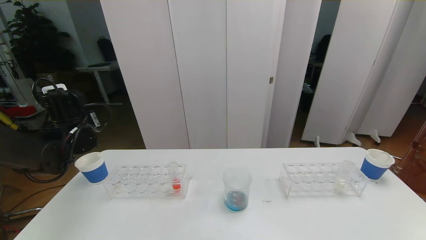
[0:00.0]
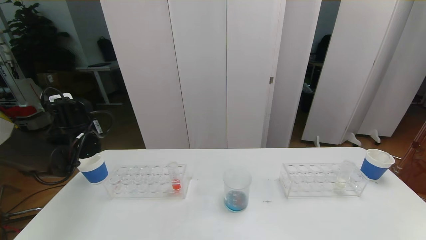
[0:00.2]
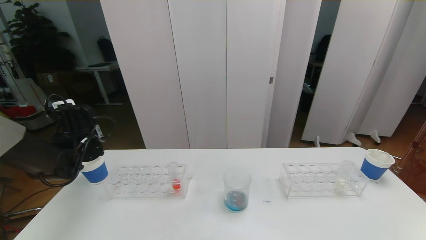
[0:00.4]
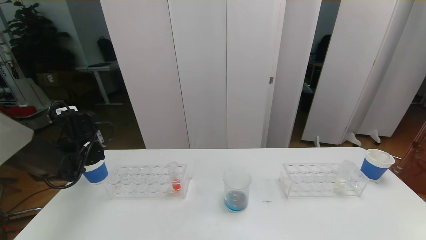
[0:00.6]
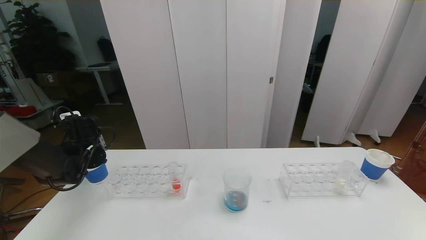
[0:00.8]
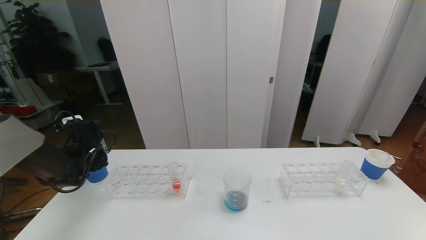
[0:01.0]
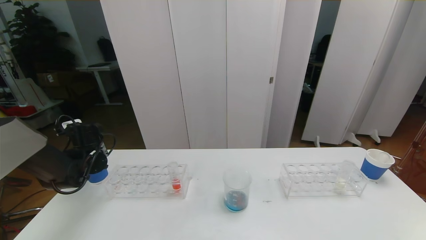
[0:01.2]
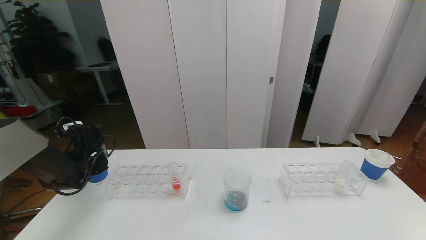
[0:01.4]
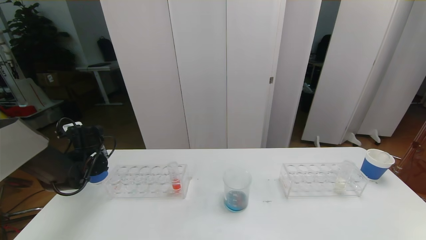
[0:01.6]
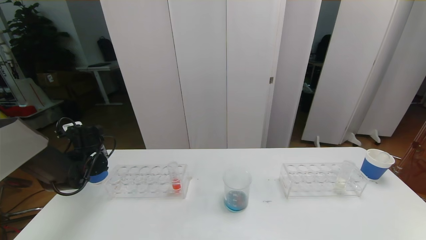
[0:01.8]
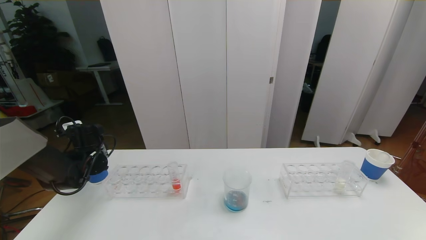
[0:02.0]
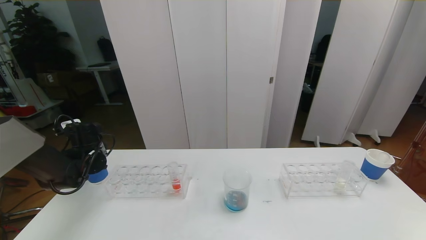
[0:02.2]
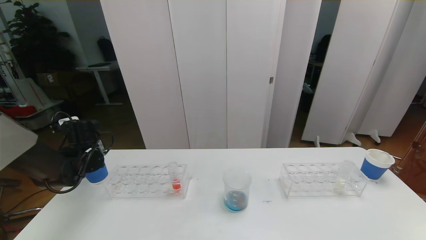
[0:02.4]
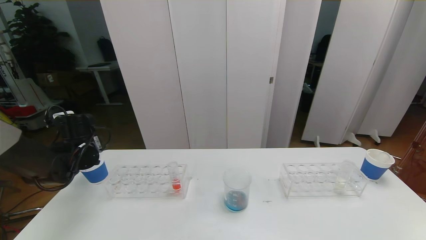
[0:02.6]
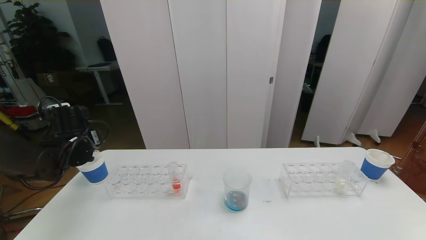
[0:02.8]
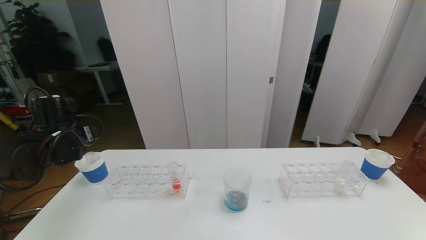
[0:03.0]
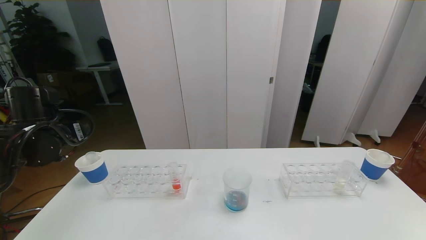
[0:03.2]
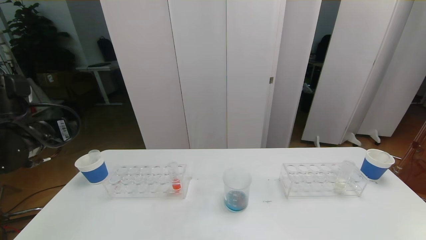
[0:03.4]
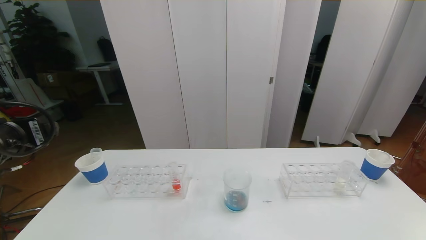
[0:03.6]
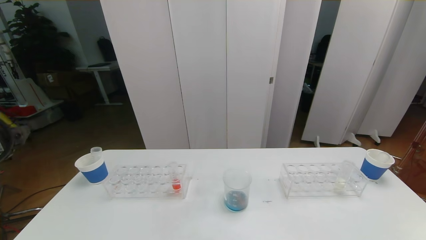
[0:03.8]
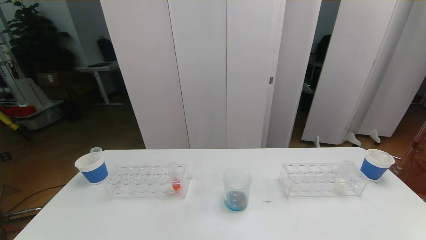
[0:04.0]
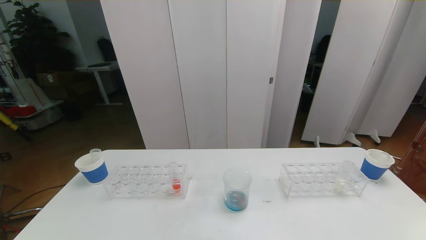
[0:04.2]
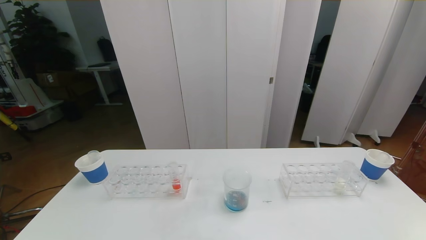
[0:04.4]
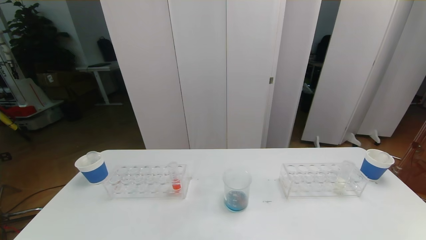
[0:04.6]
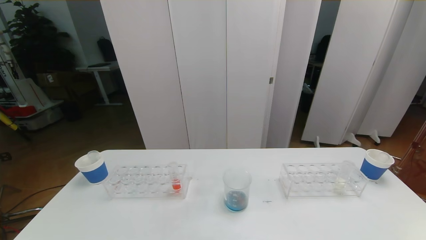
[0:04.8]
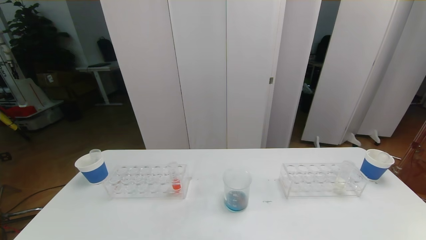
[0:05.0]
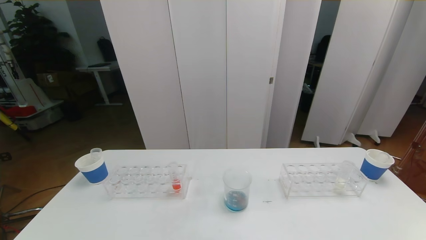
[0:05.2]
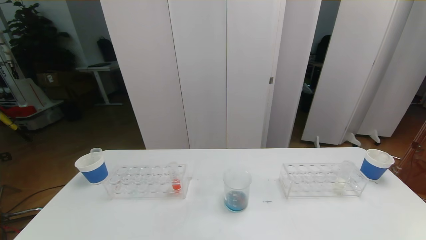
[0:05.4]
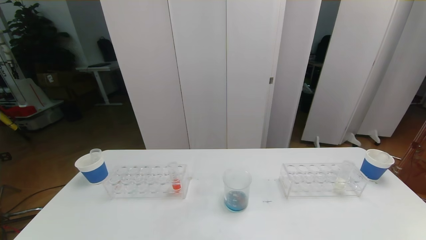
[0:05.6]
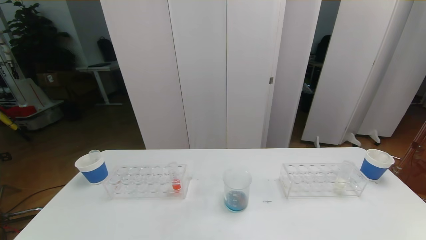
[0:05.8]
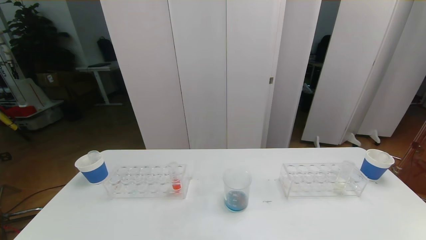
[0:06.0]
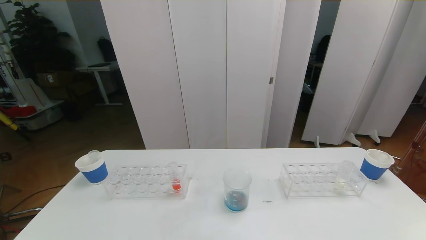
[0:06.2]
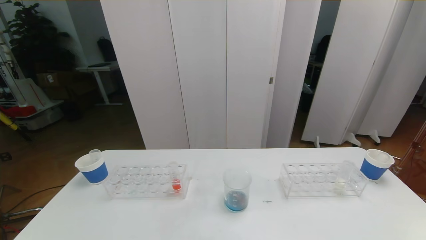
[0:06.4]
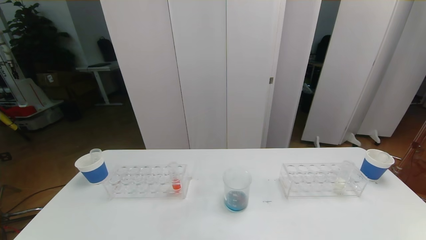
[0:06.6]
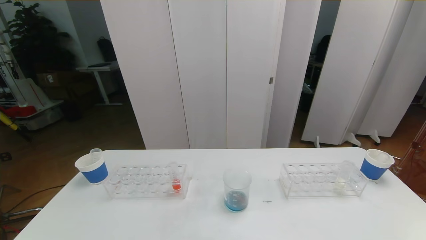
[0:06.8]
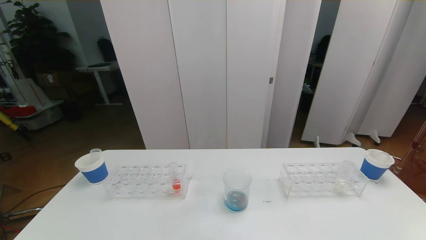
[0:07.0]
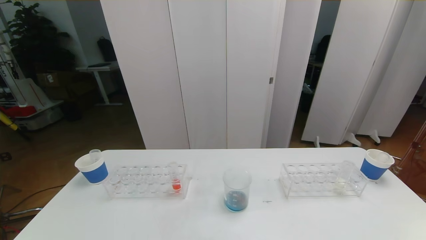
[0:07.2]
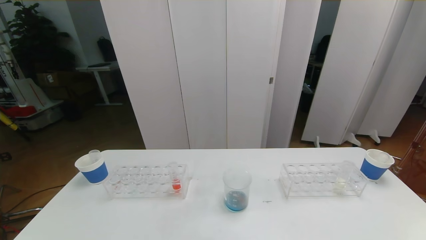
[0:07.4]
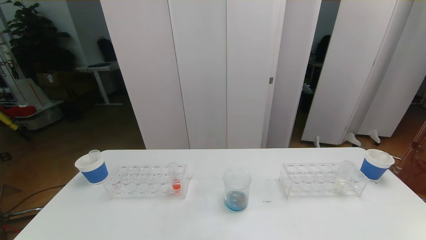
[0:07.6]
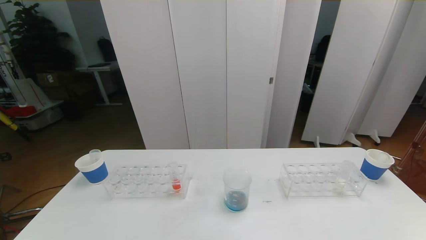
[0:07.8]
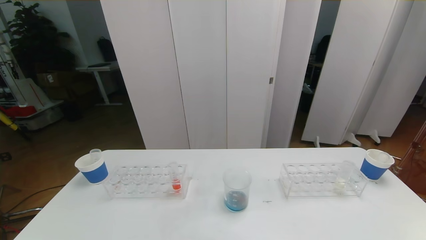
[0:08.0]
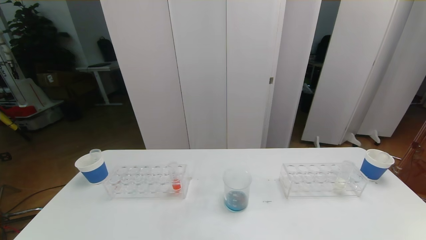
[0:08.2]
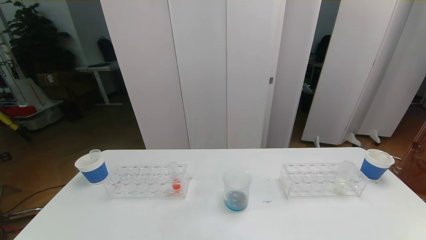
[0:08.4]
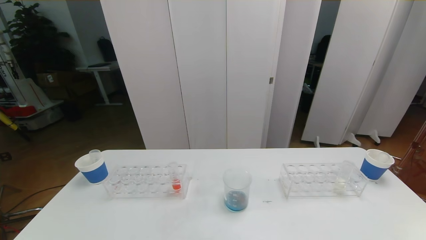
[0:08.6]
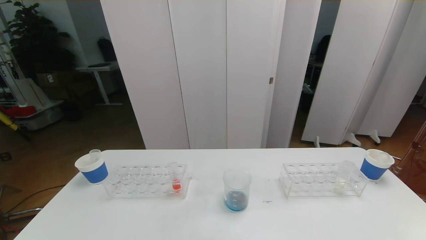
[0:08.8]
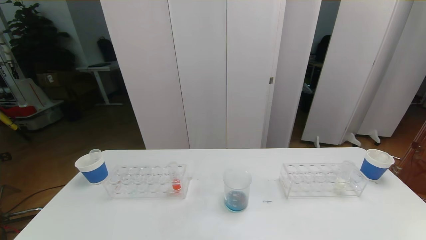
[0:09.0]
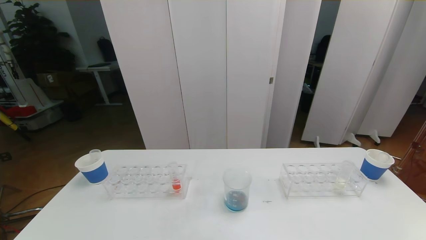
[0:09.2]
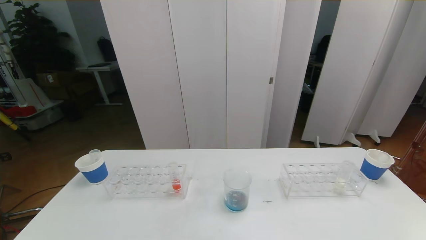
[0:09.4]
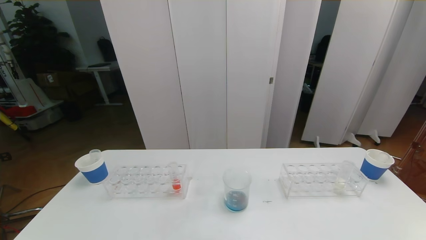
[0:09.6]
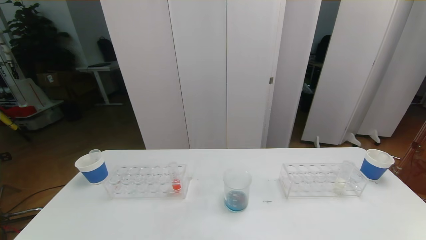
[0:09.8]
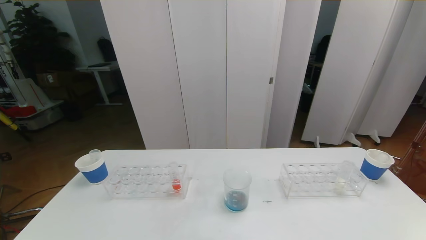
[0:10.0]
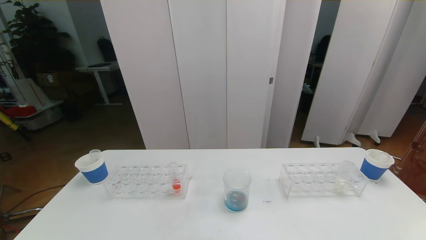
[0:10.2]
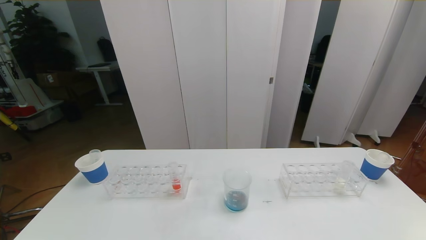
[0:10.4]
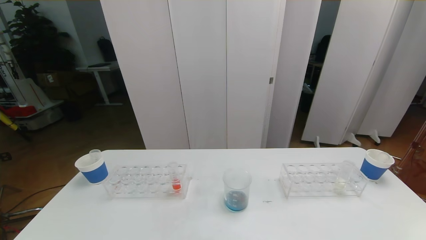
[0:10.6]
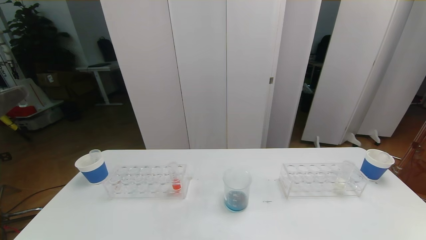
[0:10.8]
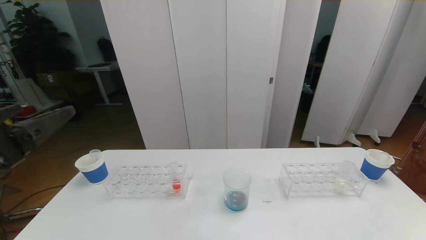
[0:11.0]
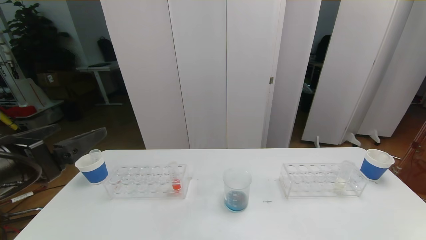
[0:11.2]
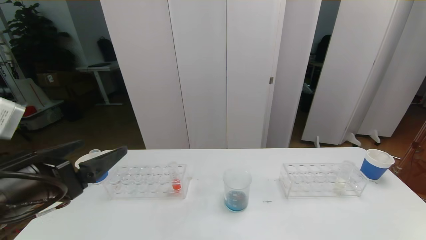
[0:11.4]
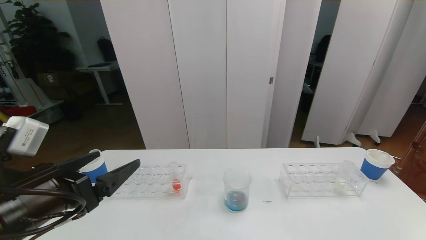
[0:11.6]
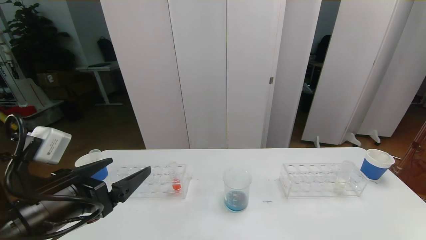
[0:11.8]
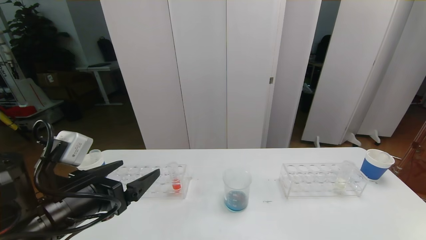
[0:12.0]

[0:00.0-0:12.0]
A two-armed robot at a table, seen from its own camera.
Task of the whole recording: pick up the test tube with red pigment the test tube with blue pigment and the test tube with white pigment by grippers and pour them into the beaker.
Step, 0:00.0 to 0:06.8: Pour the blue reagent into the graduated cylinder and place the test tube into the paper cup.
0:00.0 to 0:01.6: The left gripper is displaced downward by roughly 10 cm.
0:01.6 to 0:03.0: The left gripper heads upward and backward, covering approximately 10 cm, and opens its fingers.
0:03.0 to 0:04.4: The left gripper travels backward by roughly 30 cm.
0:06.0 to 0:09.0: Neither gripper changes place.
0:10.4 to 0:12.0: The left gripper heads forward and downward, covering about 20 cm.

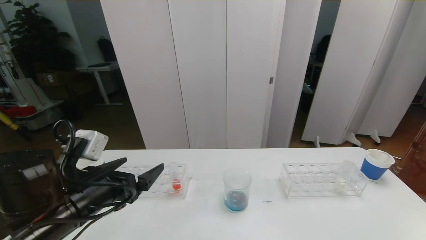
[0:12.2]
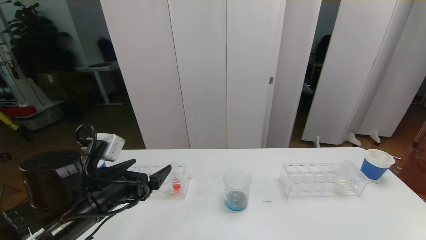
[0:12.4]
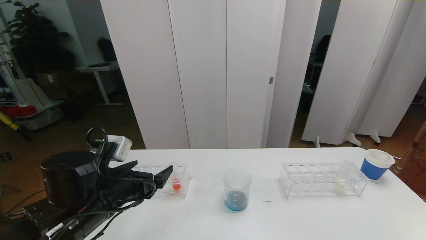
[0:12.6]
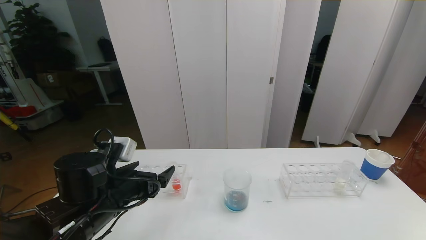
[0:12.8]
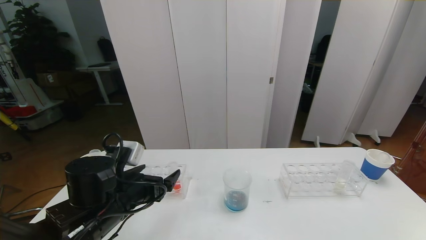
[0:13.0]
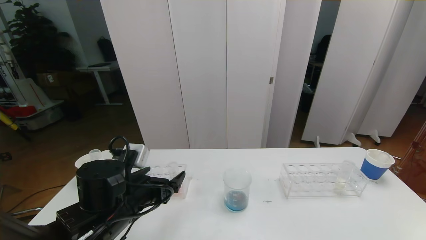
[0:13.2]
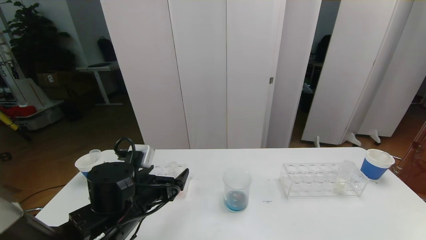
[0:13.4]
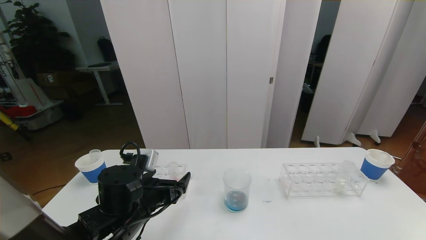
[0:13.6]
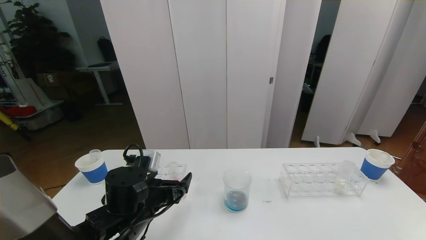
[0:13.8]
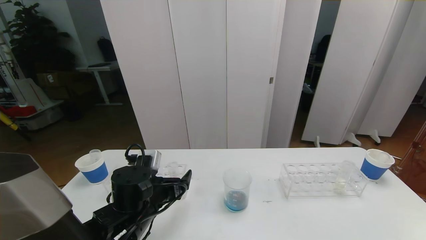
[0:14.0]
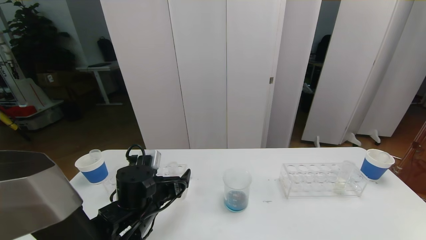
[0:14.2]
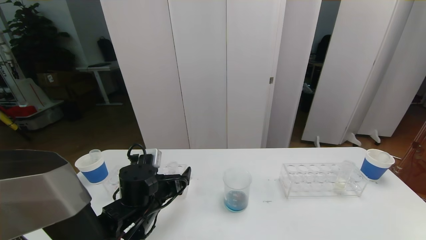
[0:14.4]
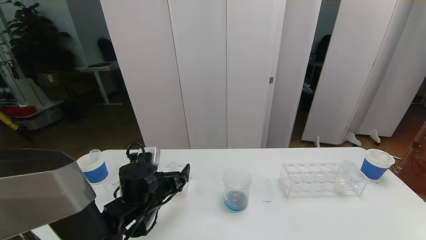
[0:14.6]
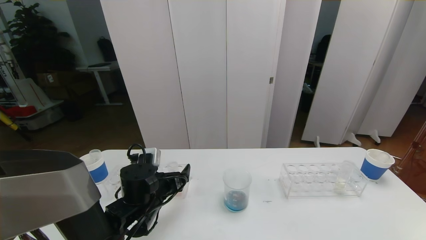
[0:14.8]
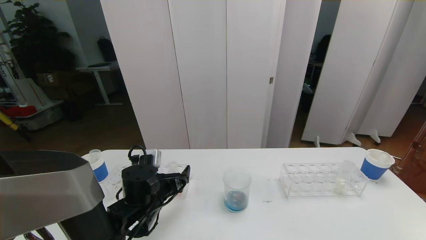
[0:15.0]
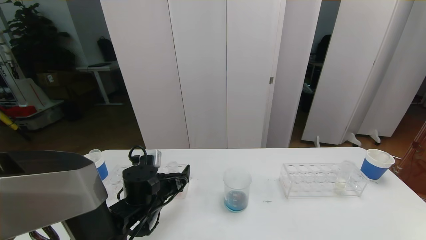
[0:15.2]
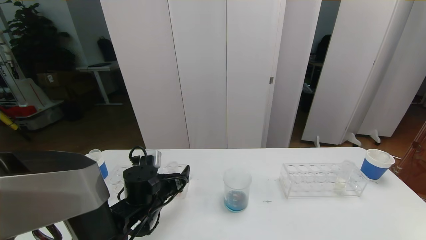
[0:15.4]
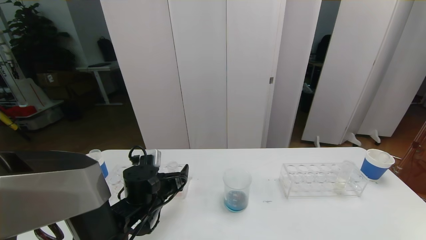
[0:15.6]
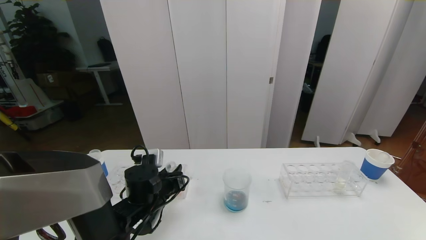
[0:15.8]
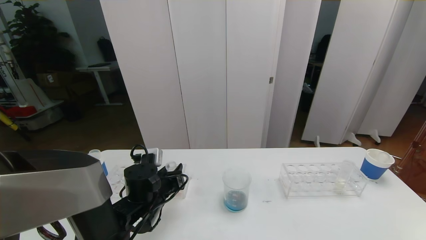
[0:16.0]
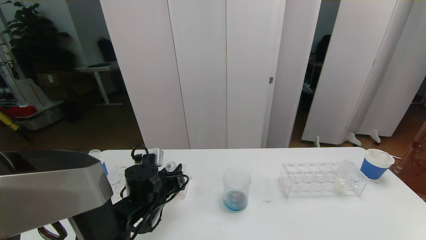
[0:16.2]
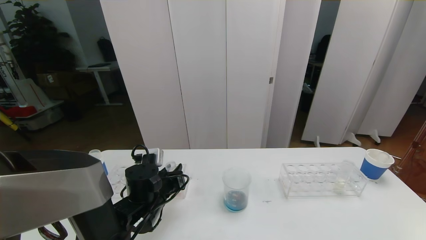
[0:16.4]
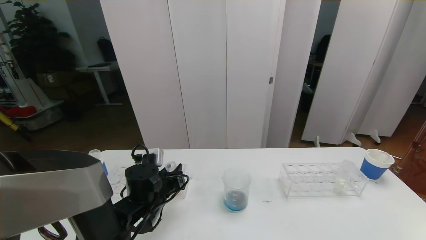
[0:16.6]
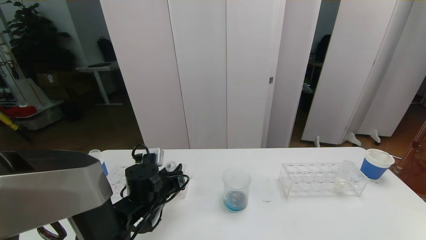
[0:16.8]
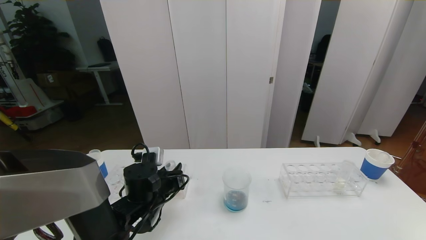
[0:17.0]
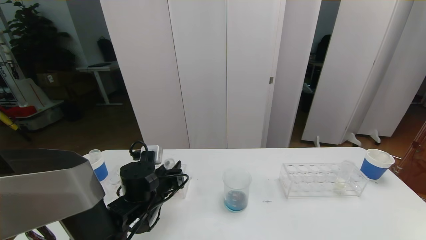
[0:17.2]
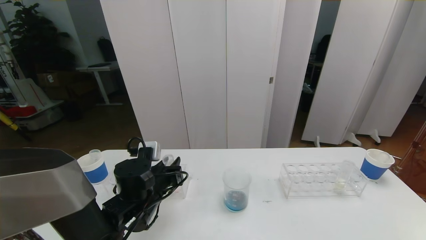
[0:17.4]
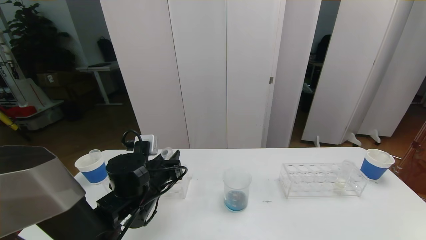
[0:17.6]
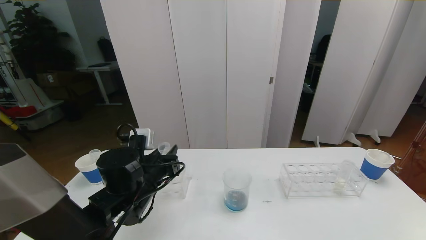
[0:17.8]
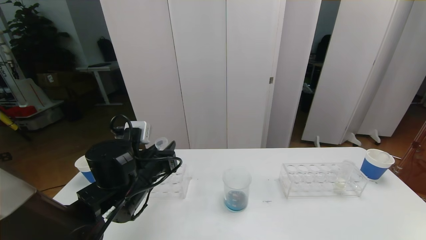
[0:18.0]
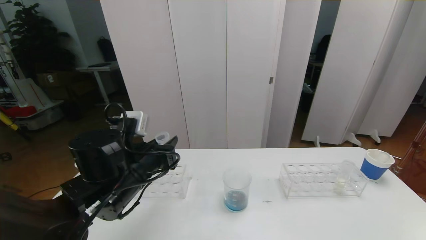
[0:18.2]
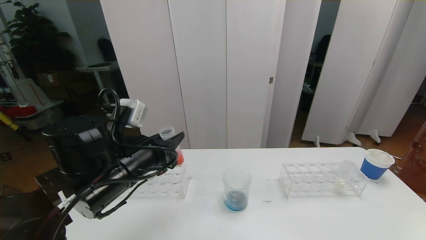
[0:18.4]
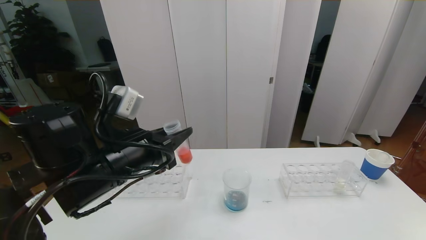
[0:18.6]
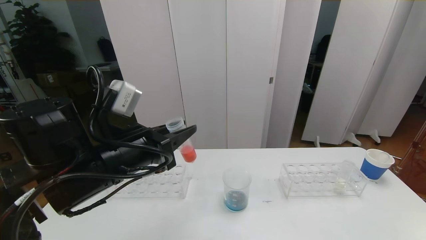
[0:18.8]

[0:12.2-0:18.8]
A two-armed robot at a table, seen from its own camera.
Task of the whole recording: pick up the test tube with red pigment the test tube with blue pigment and the test tube with white pigment by grippers and pour them into the beaker.
0:12.2 to 0:13.8: The left gripper goes approximately 10 cm downward and to the right.
0:13.8 to 0:15.4: The left gripper shifts by roughly 5 cm.
0:15.4 to 0:17.2: The left gripper closes up.
0:17.2 to 0:18.8: The left gripper goes roughly 15 cm upward.
